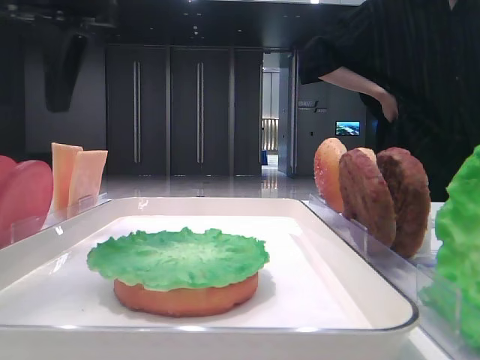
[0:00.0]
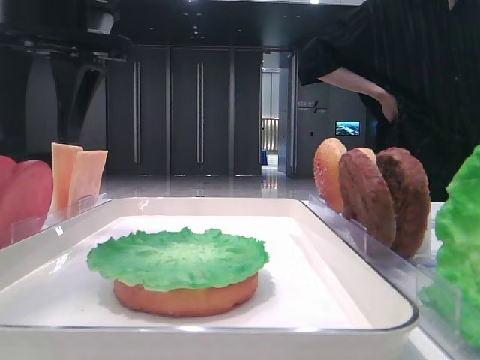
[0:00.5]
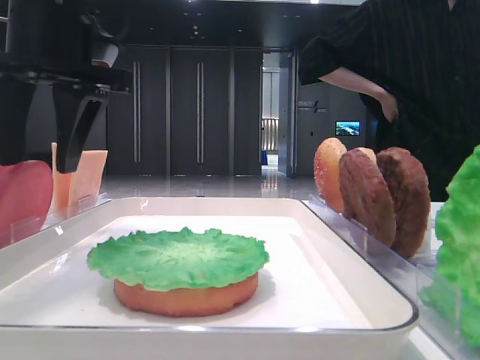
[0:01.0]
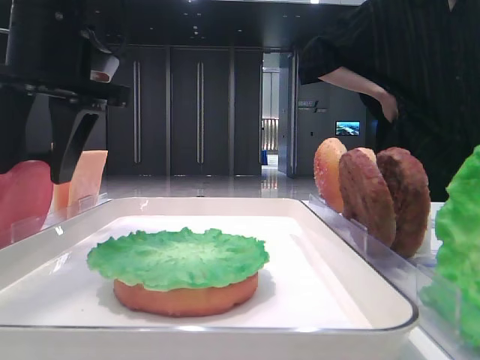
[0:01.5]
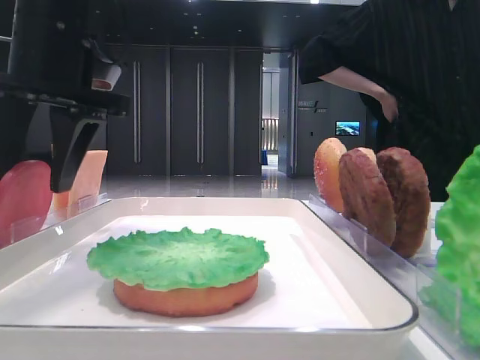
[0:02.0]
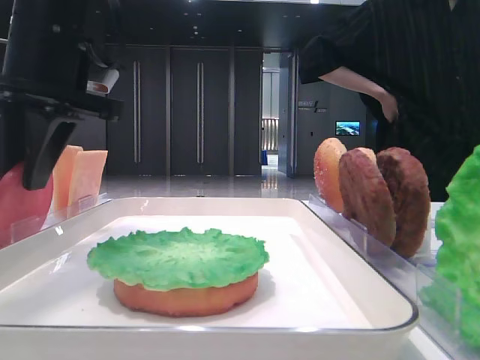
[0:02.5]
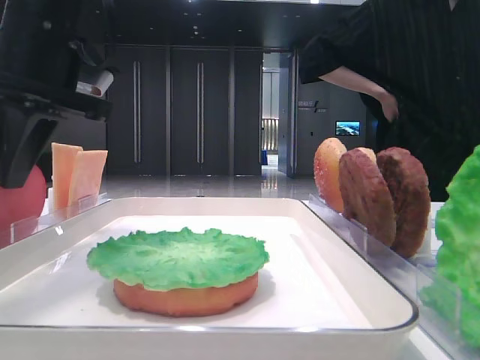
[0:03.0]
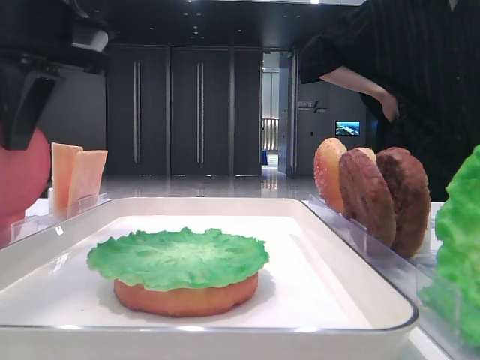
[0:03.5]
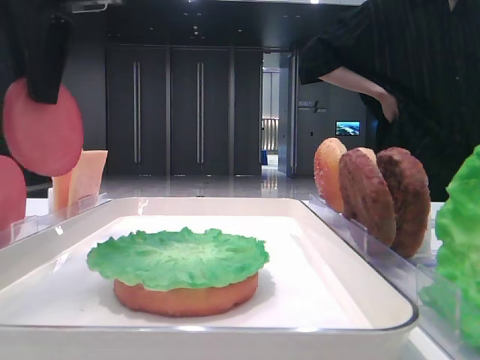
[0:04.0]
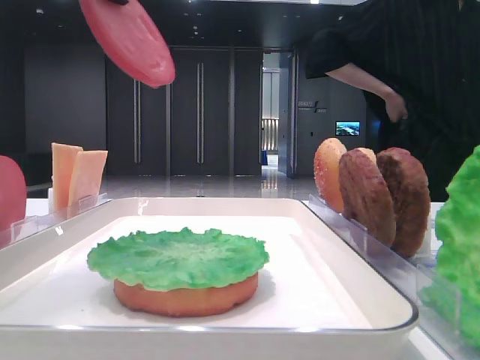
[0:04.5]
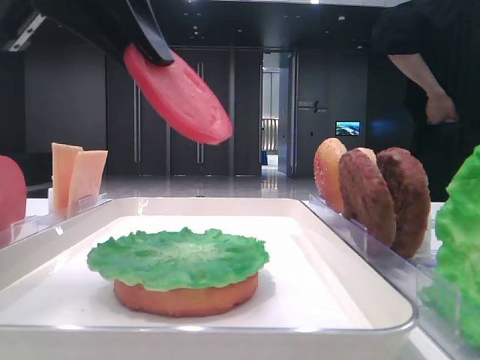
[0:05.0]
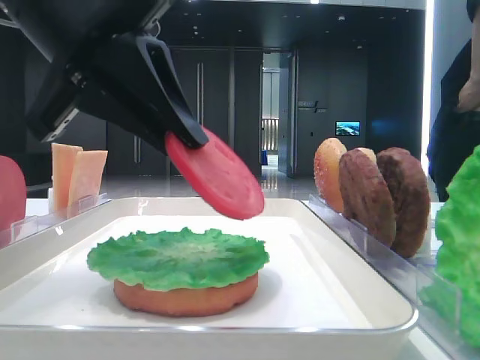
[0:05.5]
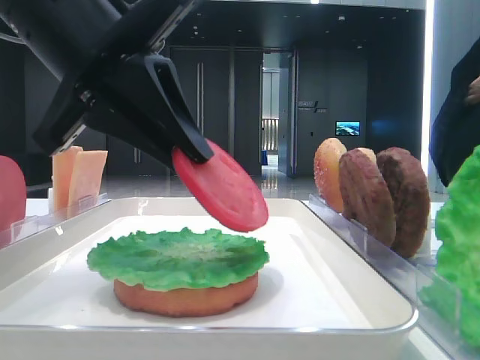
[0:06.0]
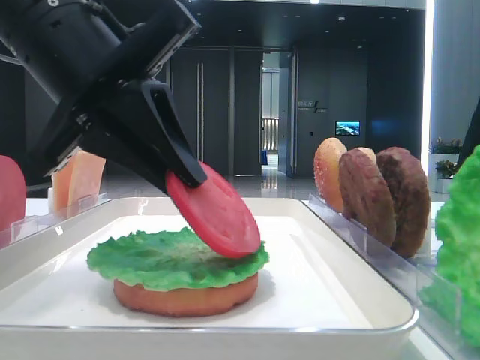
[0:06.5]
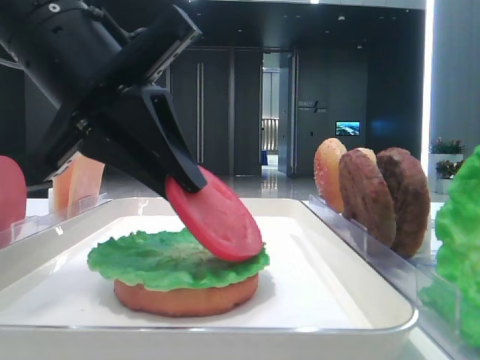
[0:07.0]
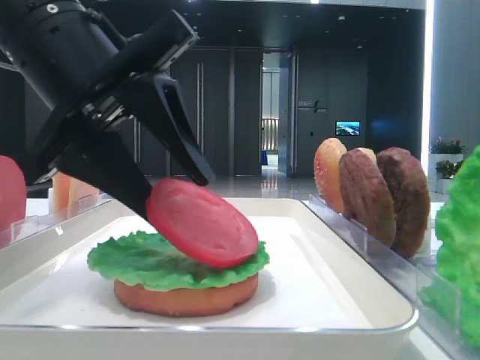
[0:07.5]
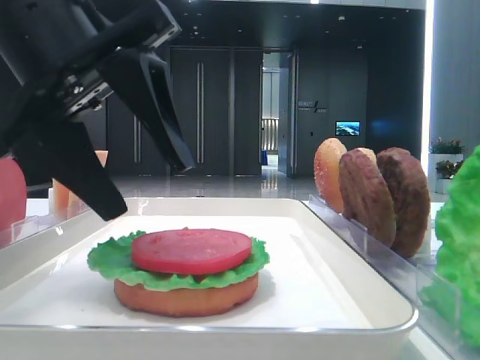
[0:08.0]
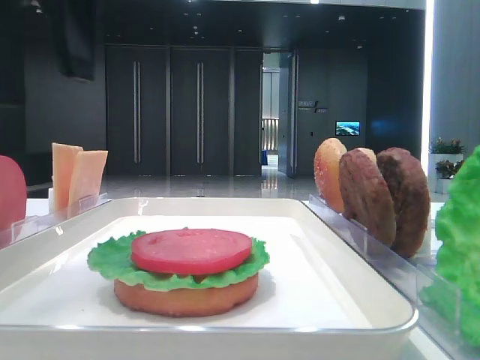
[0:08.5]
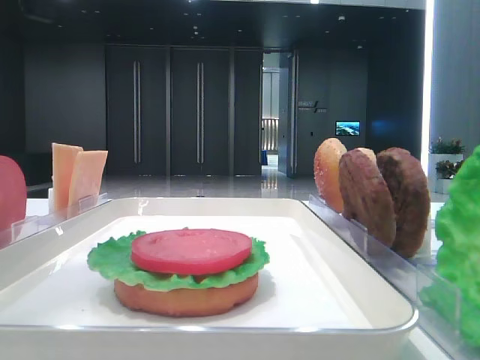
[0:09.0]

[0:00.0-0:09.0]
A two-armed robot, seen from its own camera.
Step, 0:00.0 to 0:02.5: Pick up the tomato slice with the left hand.
Step, 0:03.0 to 0:07.5: Place the tomato slice on the lettuce leaf with the left hand.
0:00.0 to 0:02.0: The left gripper moves downward, approximately 5 cm.
0:02.0 to 0:04.5: The left gripper travels upward and backward by about 15 cm, and closes up.
0:04.5 to 0:07.0: The left gripper moves downward, about 15 cm.
0:07.0 to 0:09.0: The left gripper goes some 15 cm upward, and opens up.
